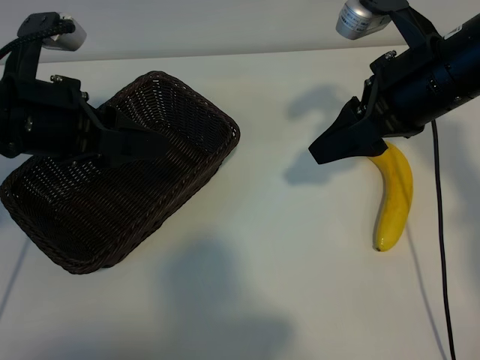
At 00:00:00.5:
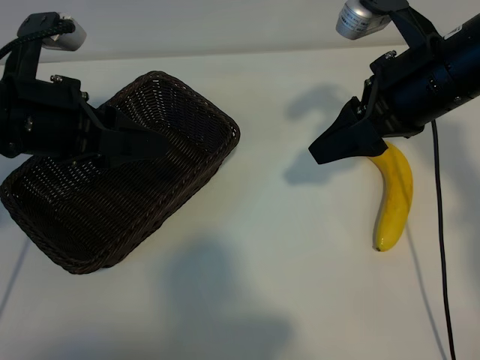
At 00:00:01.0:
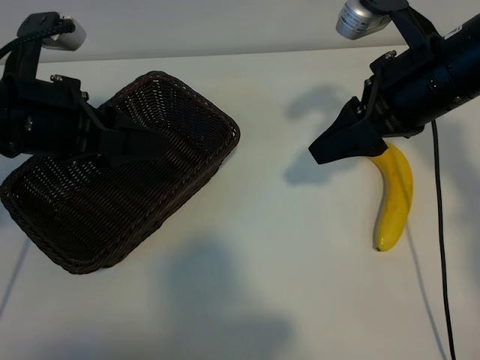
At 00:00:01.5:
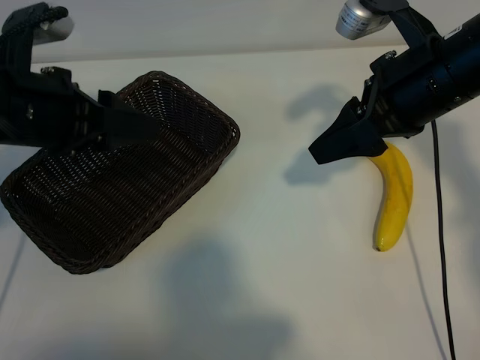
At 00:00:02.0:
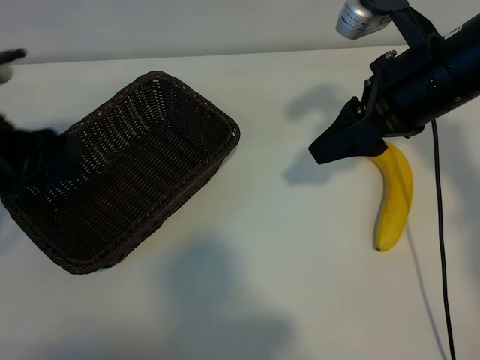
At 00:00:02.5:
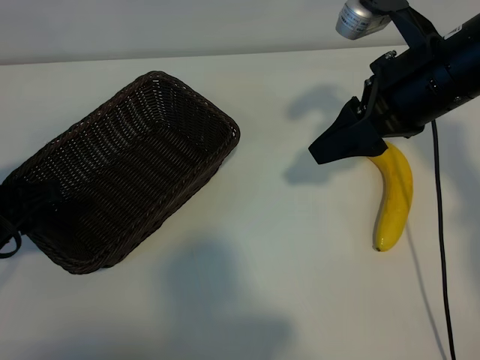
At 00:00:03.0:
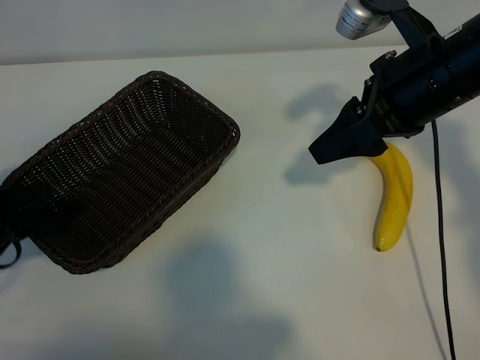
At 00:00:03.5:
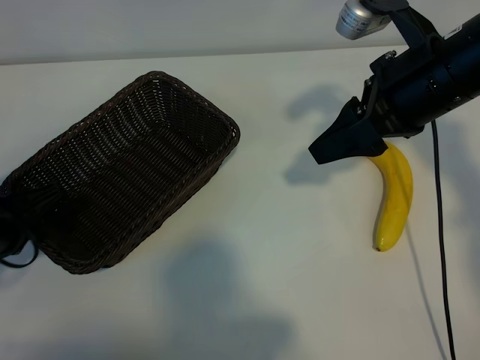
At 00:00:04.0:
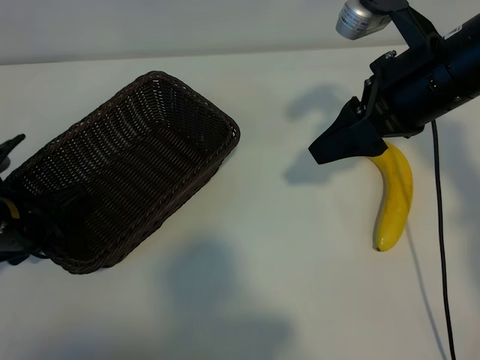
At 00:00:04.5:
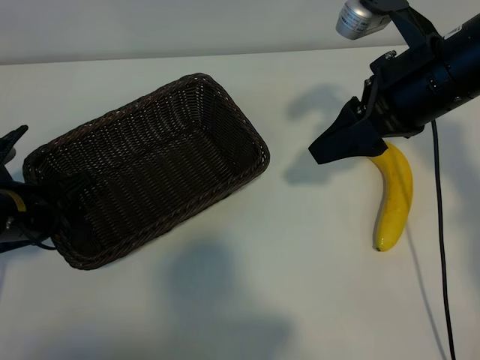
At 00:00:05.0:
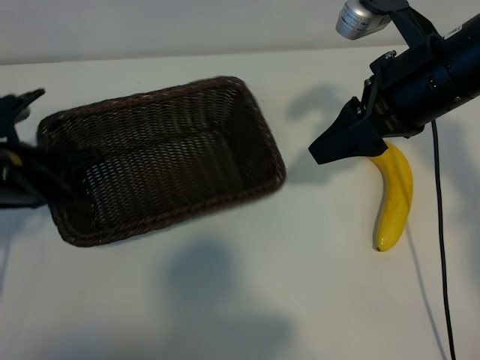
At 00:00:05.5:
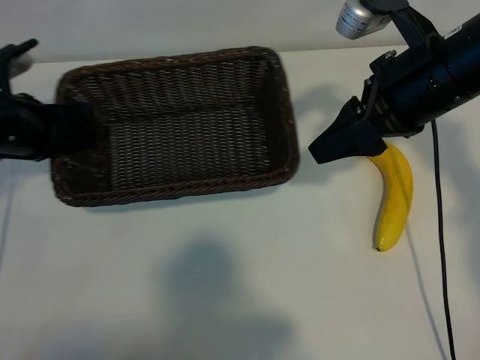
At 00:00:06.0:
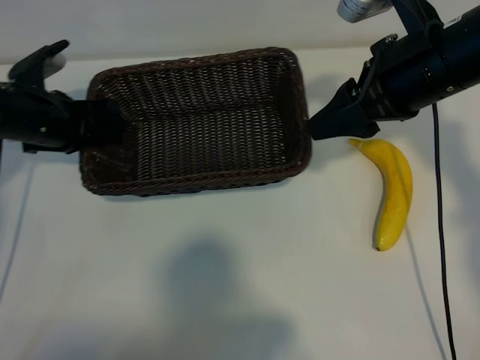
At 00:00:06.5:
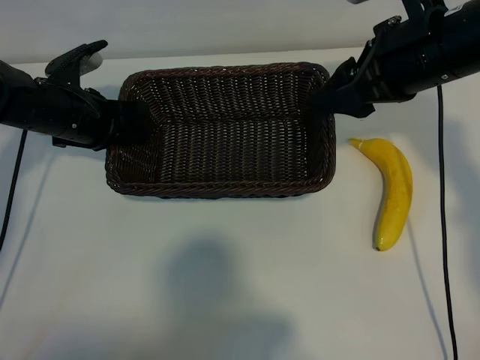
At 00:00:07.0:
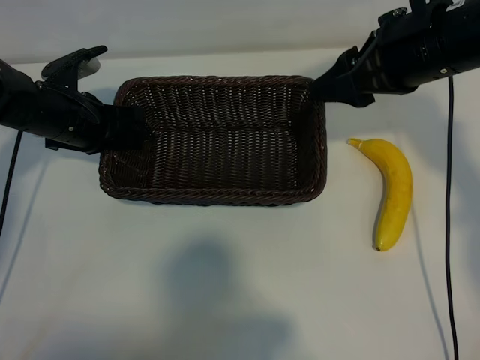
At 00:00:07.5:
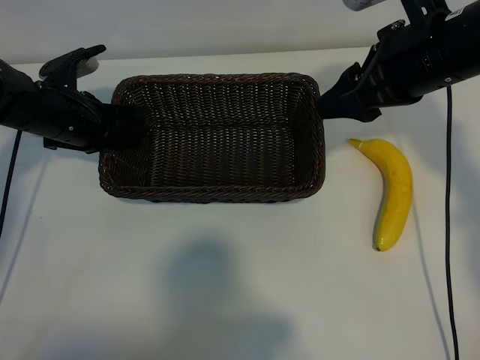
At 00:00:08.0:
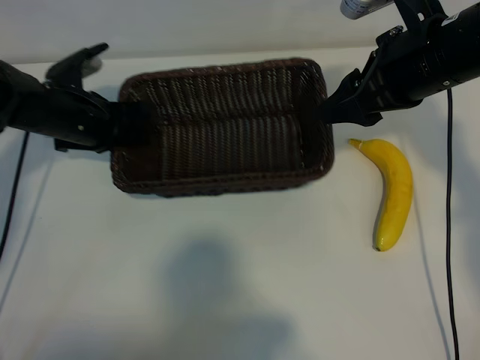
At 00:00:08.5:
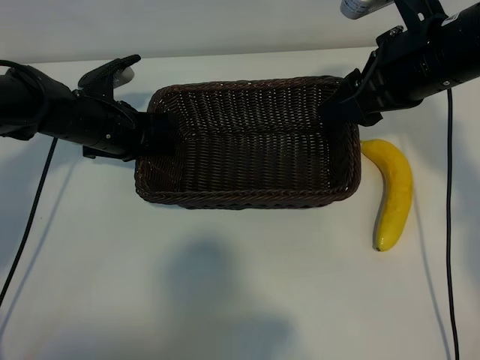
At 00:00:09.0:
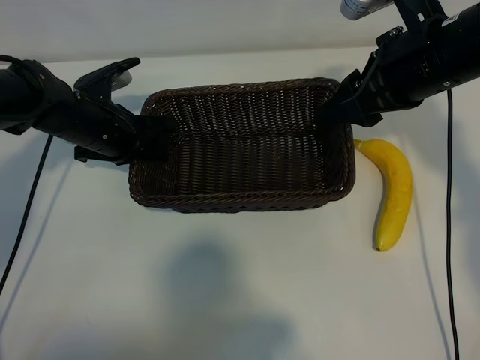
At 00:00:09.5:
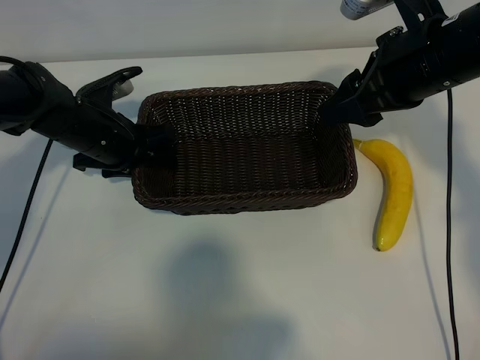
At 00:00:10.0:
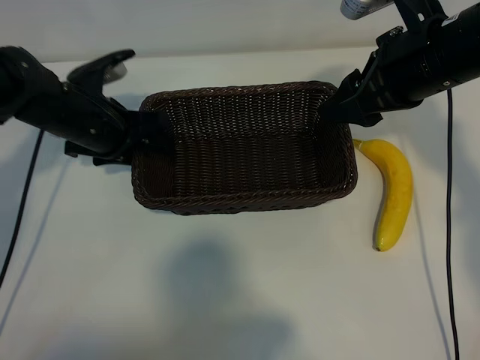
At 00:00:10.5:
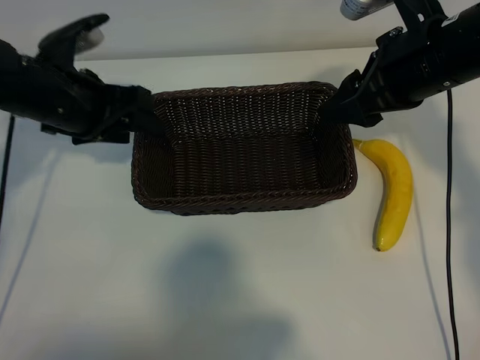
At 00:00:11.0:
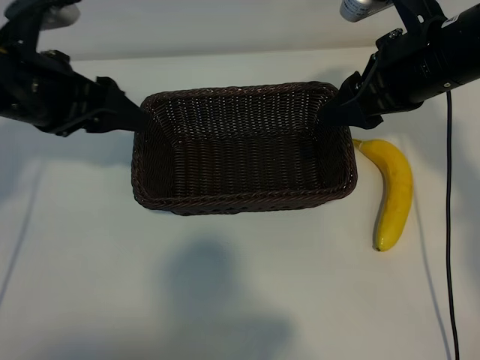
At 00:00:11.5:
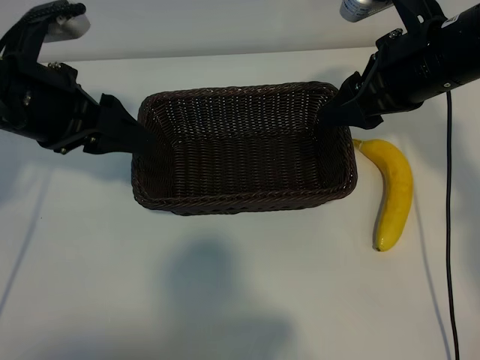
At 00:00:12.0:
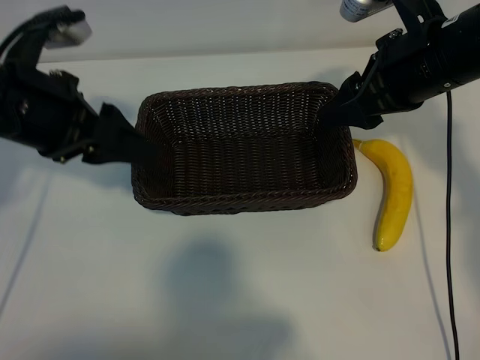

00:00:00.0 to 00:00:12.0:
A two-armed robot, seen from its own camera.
Task of the whole recording: pick up the banana and put it into the basket.
Step, 00:00:01.0 to 00:00:04.5: Grasp the basket with the left gripper.
Step, 00:00:05.0 to 00:00:09.5: Place the basket in the center of the table with the left gripper.

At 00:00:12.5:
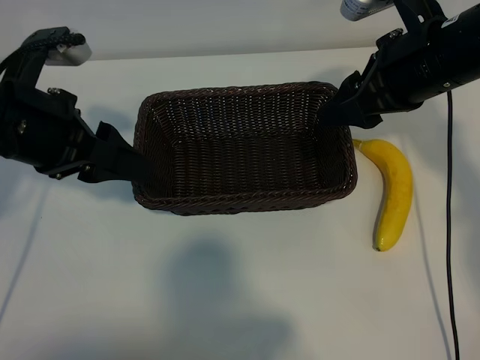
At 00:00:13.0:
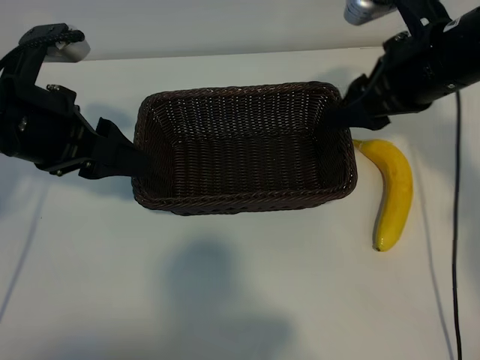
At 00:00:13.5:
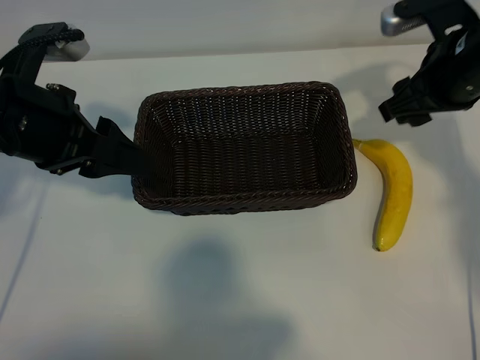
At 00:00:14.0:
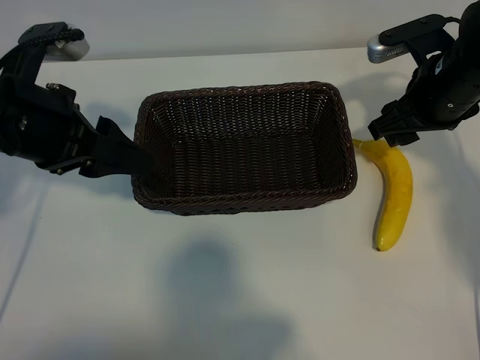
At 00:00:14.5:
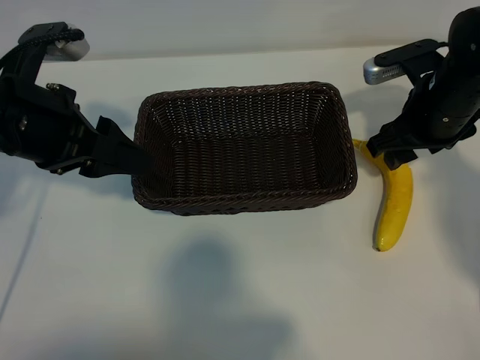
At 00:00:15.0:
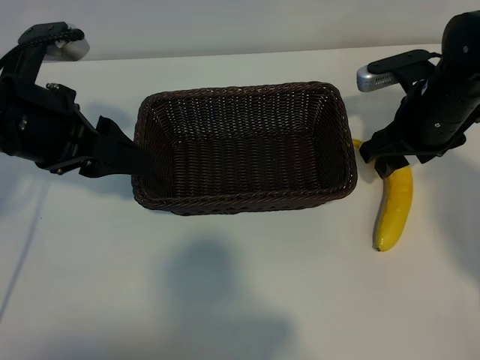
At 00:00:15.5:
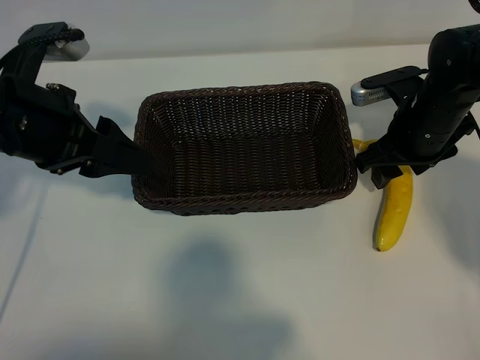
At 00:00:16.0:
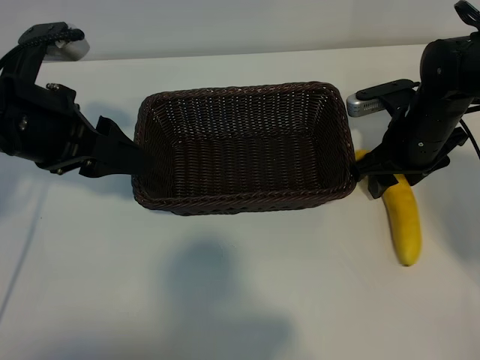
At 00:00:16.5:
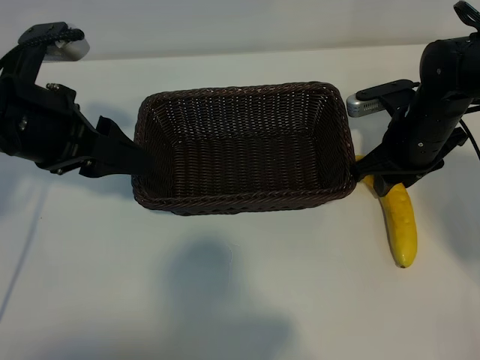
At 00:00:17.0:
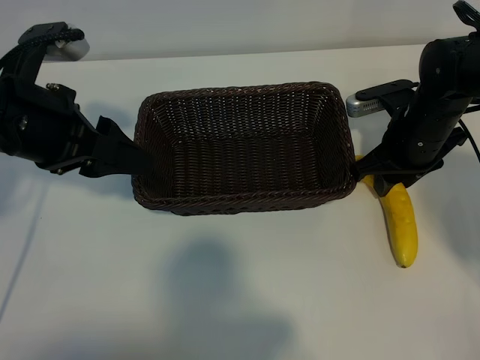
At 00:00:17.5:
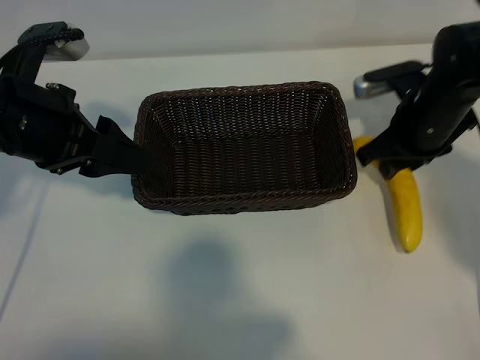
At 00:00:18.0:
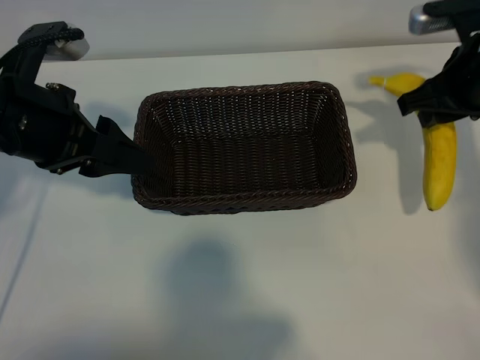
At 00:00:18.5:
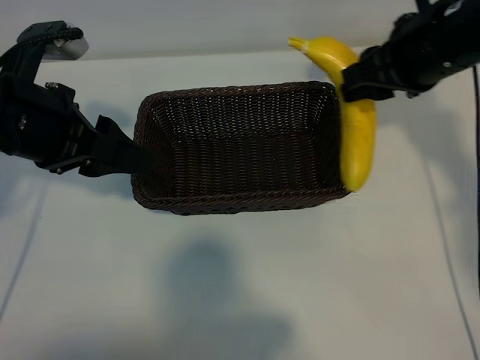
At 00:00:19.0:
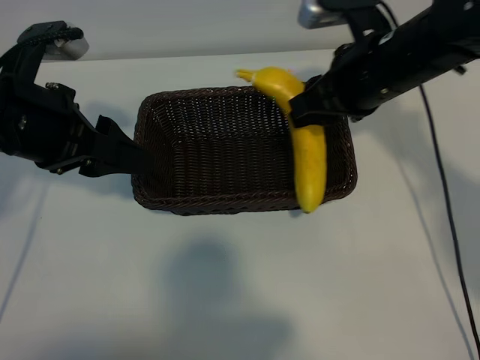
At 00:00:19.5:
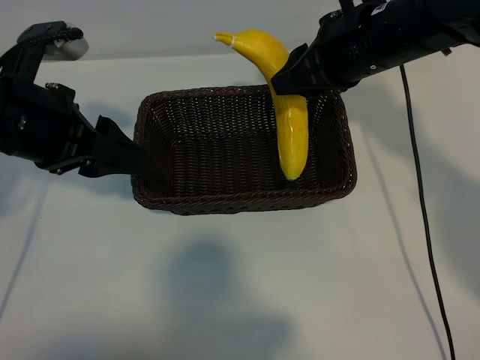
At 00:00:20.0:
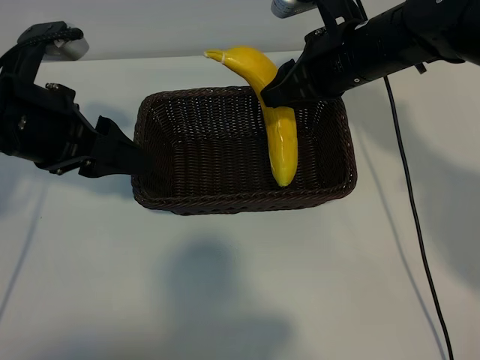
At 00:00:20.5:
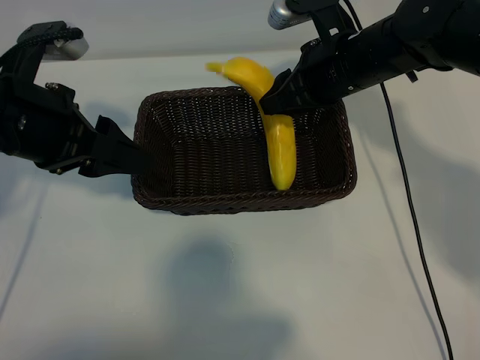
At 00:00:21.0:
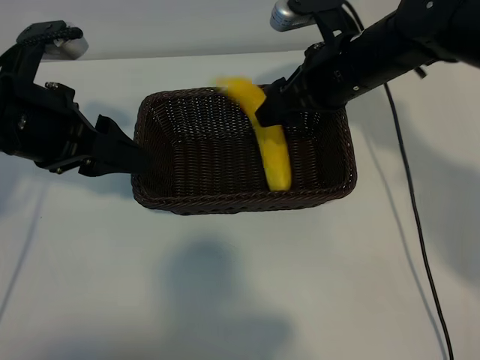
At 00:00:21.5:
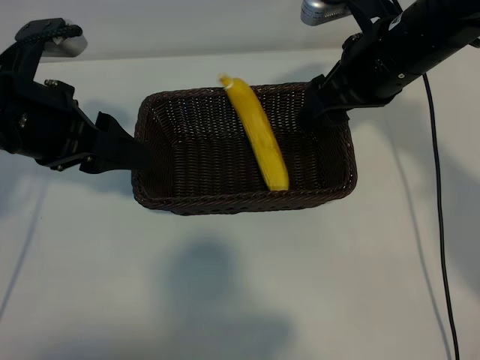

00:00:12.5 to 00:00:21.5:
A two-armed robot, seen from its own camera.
Task of the whole recording: pick up the banana and put it into the basket.
Step, 00:00:12.5 to 00:00:17.0: Grasp the banana with right gripper.
Step, 00:00:17.5 to 00:00:21.0: Place the banana in the basket with right gripper.
